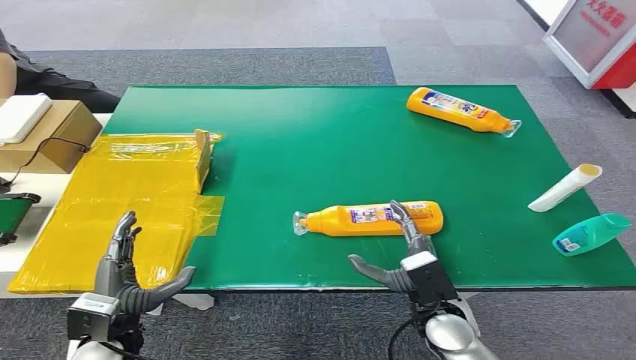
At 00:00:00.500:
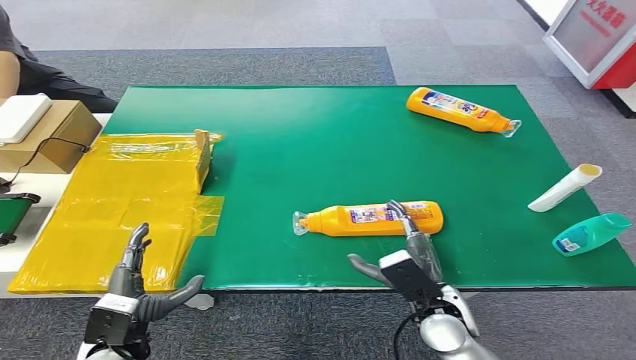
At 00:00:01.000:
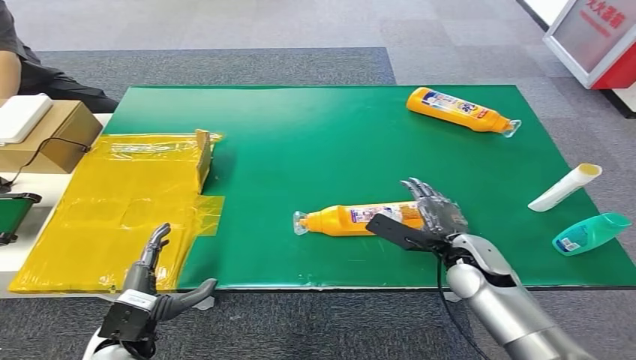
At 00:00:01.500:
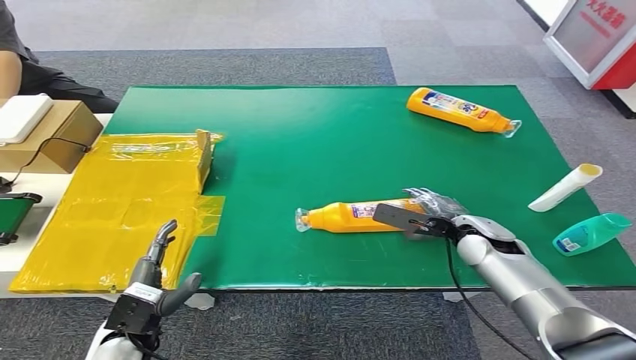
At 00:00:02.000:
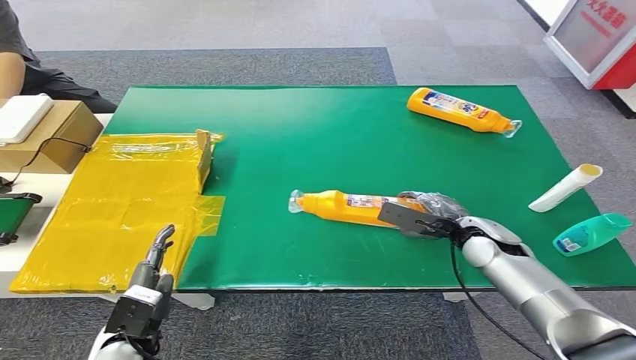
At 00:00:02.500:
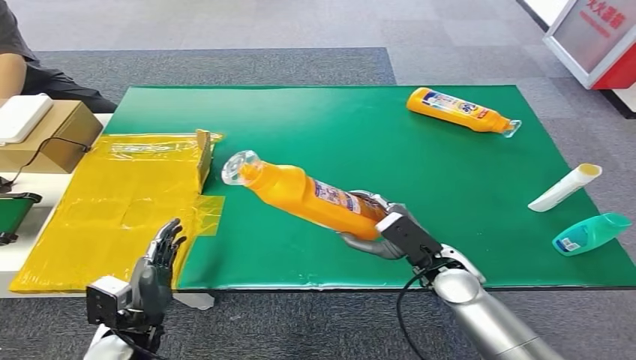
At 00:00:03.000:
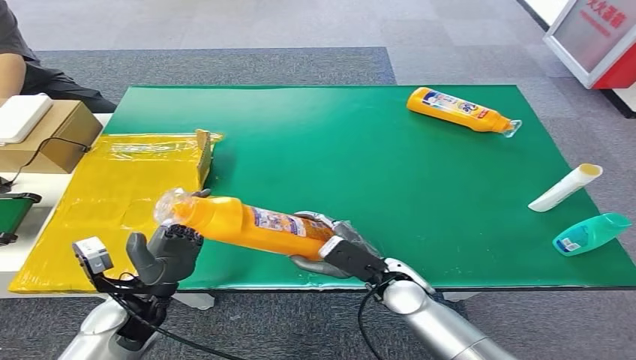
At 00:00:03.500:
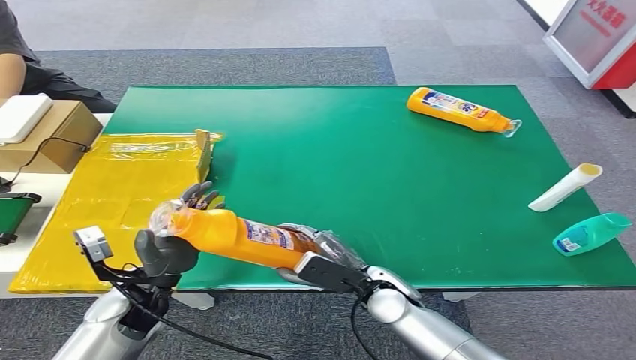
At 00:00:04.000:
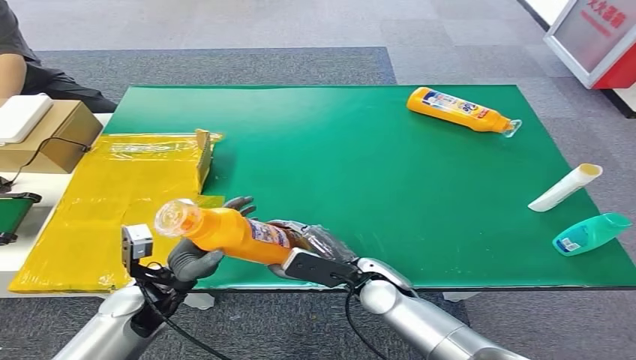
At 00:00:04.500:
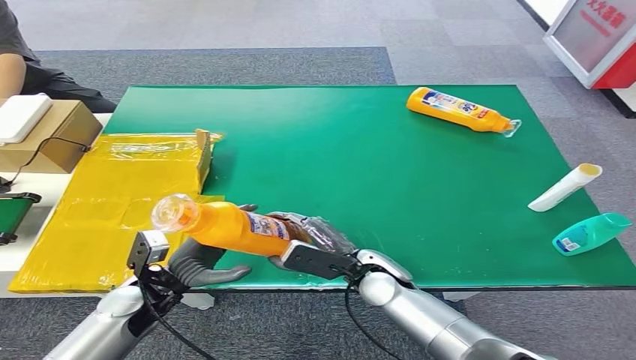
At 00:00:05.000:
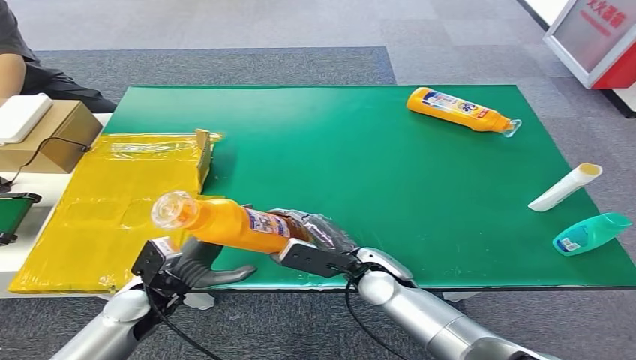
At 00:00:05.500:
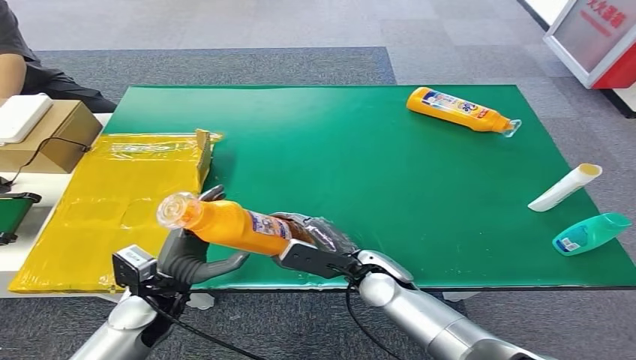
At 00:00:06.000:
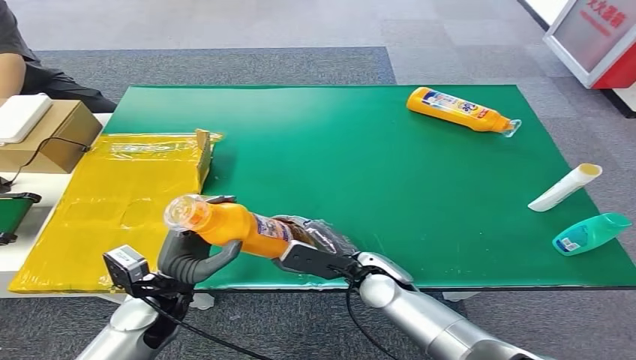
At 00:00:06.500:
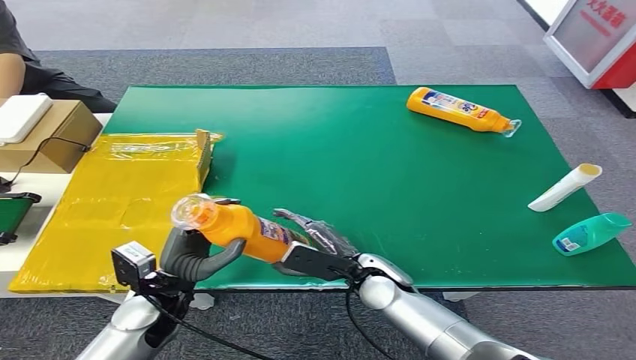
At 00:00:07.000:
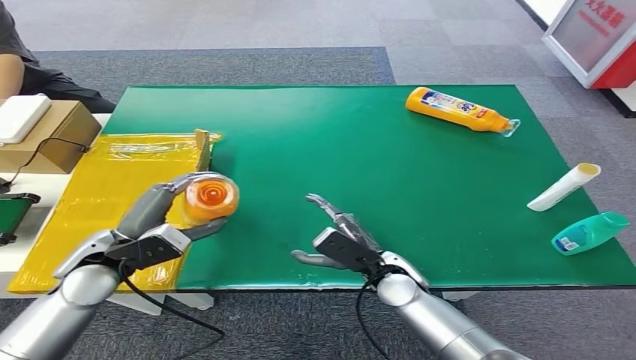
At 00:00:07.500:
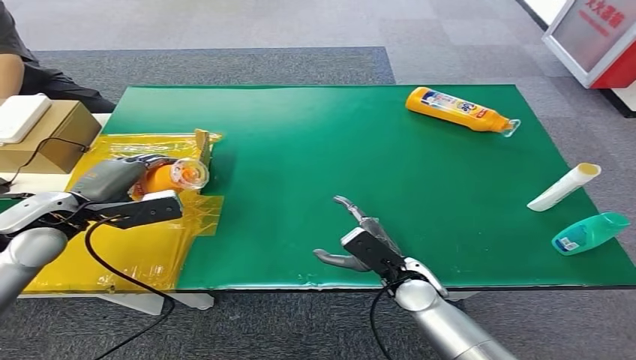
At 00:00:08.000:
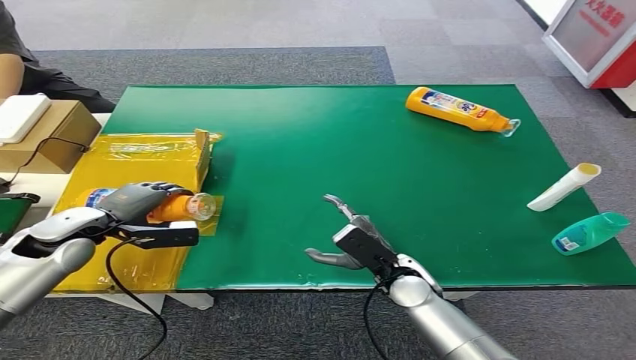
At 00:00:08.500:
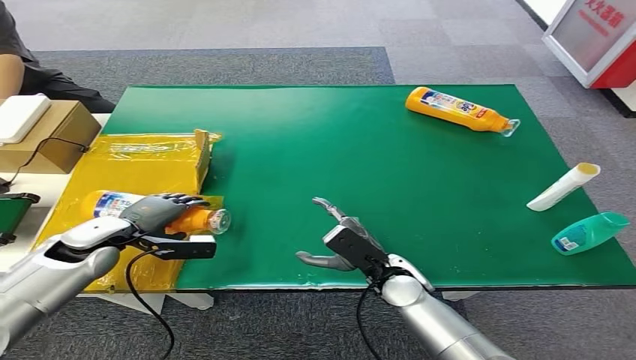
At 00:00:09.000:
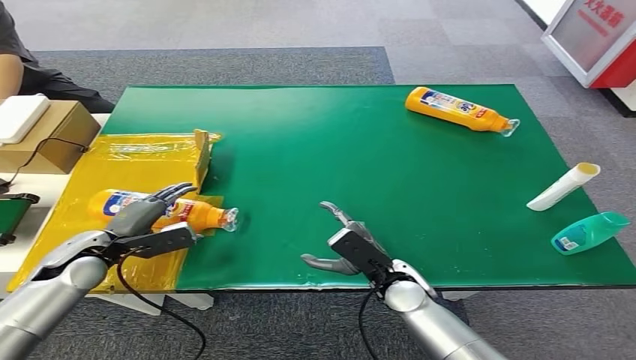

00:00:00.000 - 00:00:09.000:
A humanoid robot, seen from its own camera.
Step, 00:00:00.000 - 00:00:02.000: Pick up the bottle from the table.
Step, 00:00:02.500 - 00:00:09.000: Turn the bottle to the front side.
00:00:02.000 - 00:00:04.500: The right hand is displaced to the left by about 20 cm, while the left hand travels forward by some 10 cm.
00:00:04.500 - 00:00:07.000: The left hand shifts roughly 10 cm upward.
00:00:07.000 - 00:00:09.000: The left hand is displaced to the left and downward by approximately 10 cm.

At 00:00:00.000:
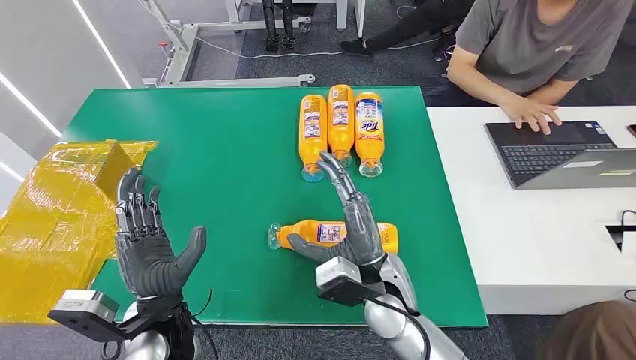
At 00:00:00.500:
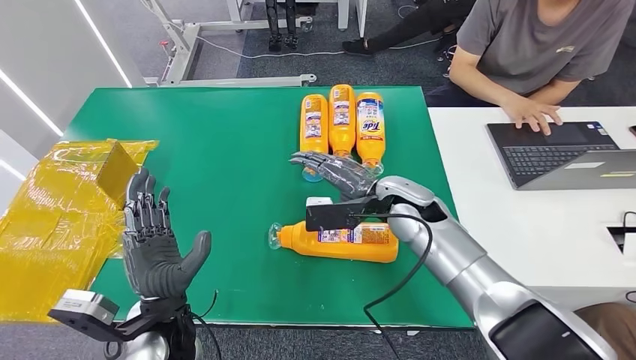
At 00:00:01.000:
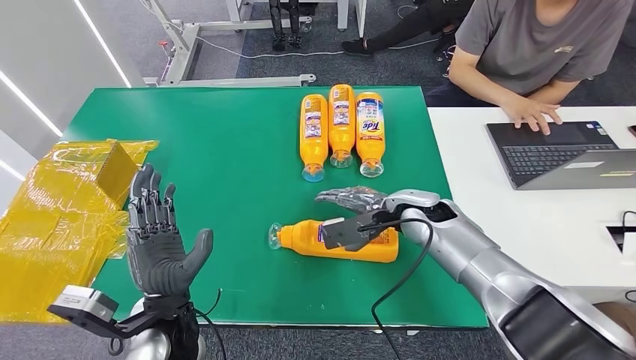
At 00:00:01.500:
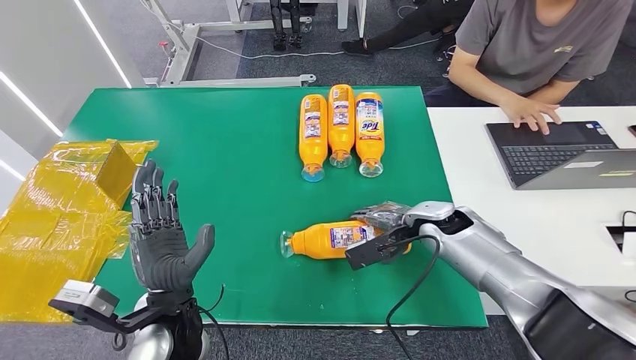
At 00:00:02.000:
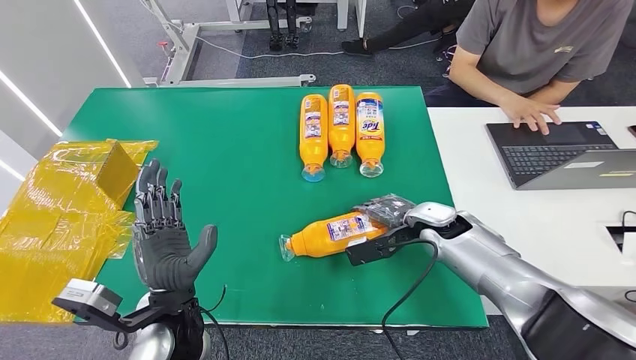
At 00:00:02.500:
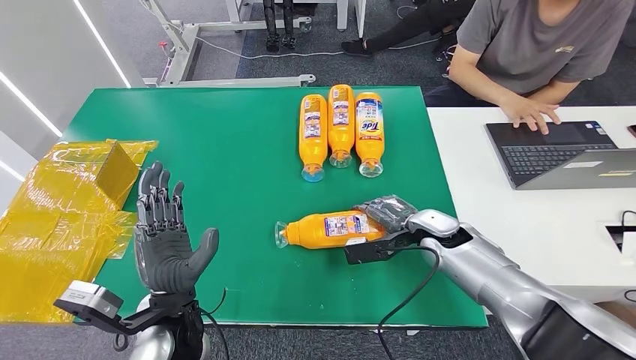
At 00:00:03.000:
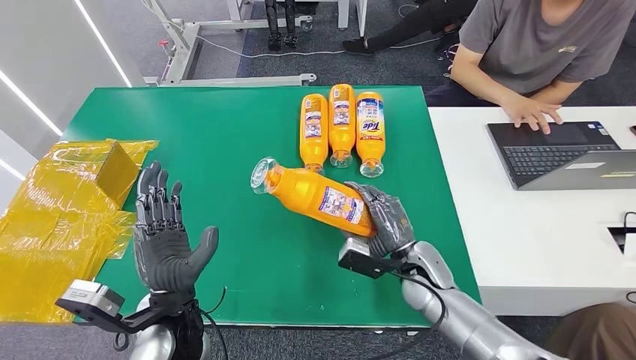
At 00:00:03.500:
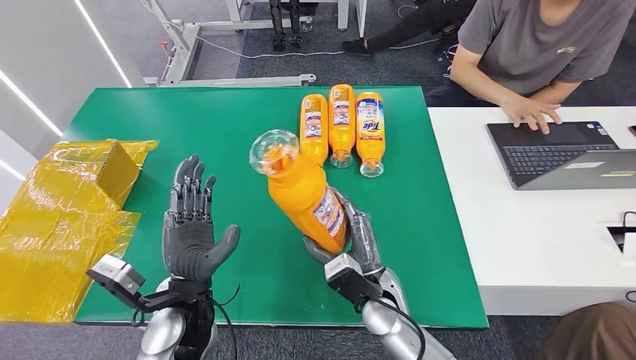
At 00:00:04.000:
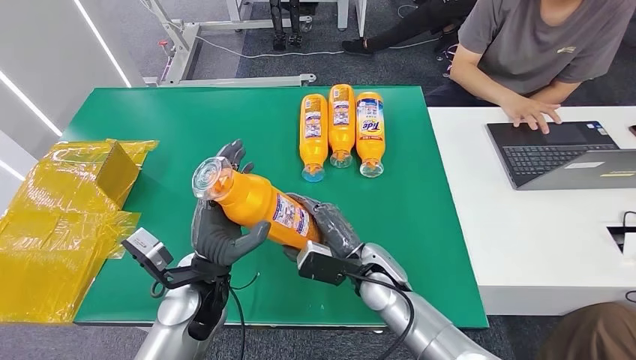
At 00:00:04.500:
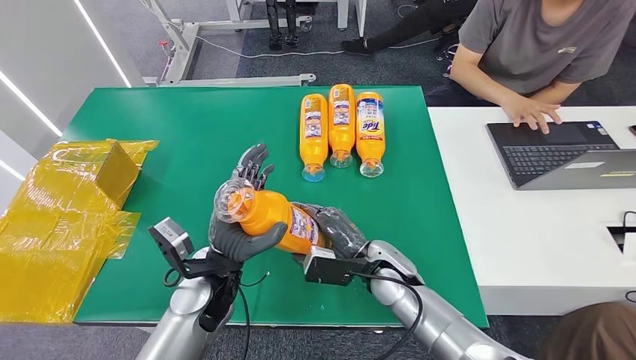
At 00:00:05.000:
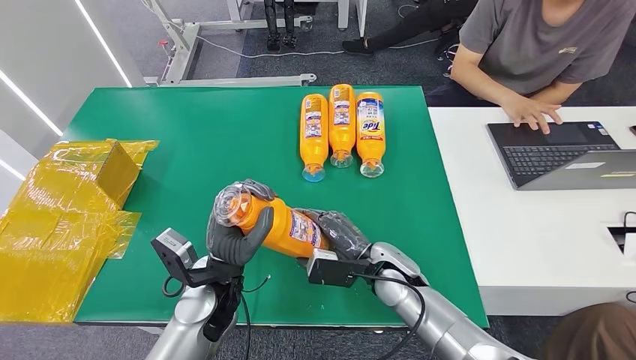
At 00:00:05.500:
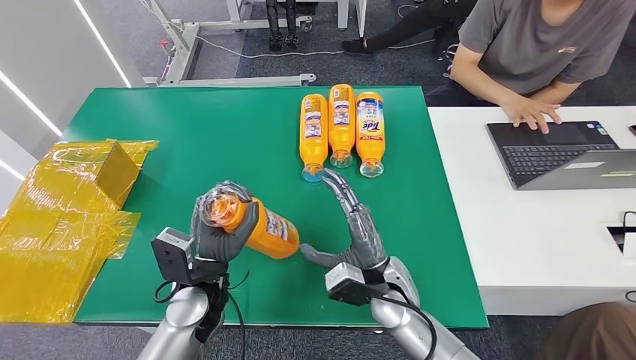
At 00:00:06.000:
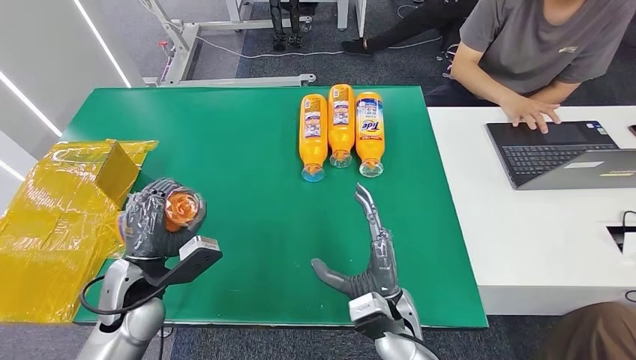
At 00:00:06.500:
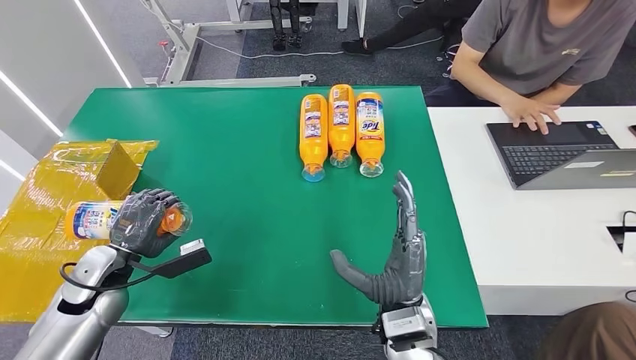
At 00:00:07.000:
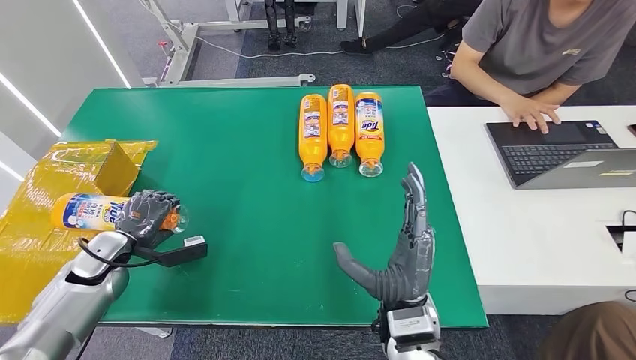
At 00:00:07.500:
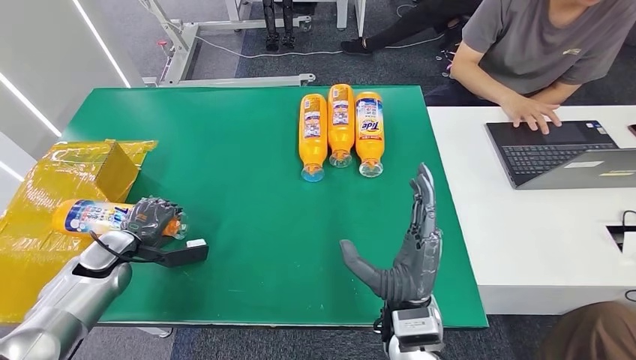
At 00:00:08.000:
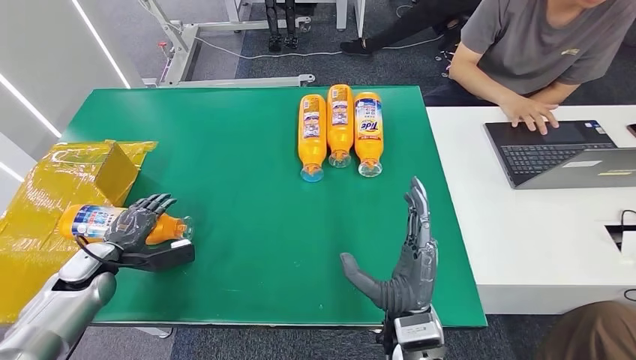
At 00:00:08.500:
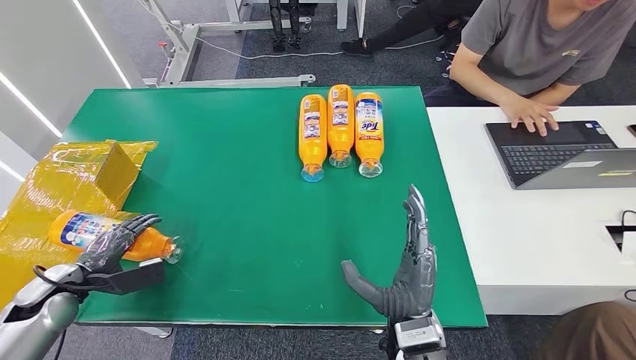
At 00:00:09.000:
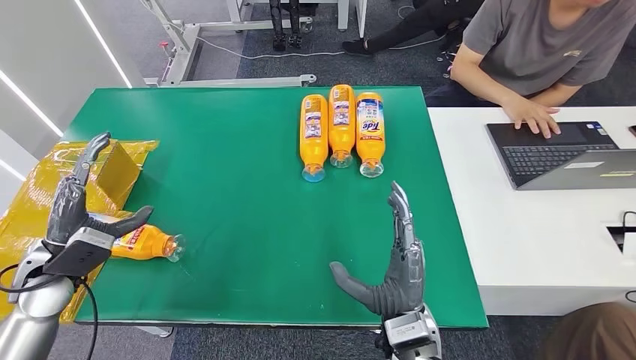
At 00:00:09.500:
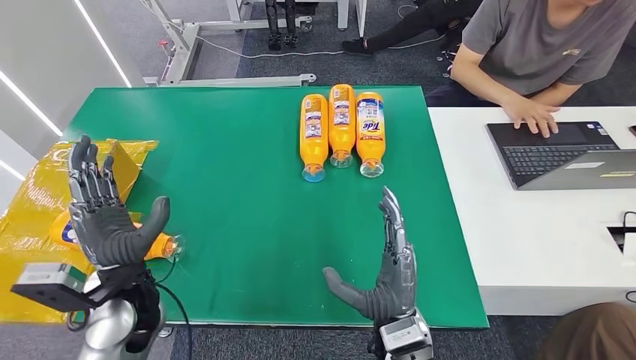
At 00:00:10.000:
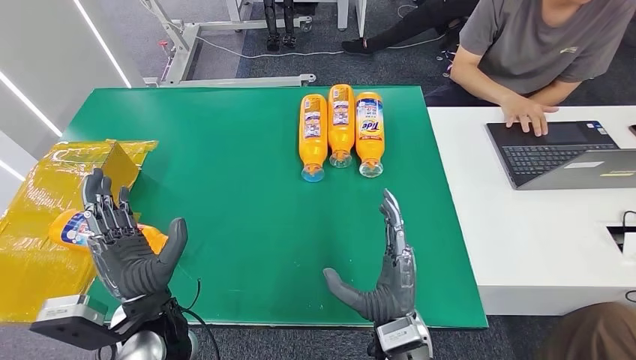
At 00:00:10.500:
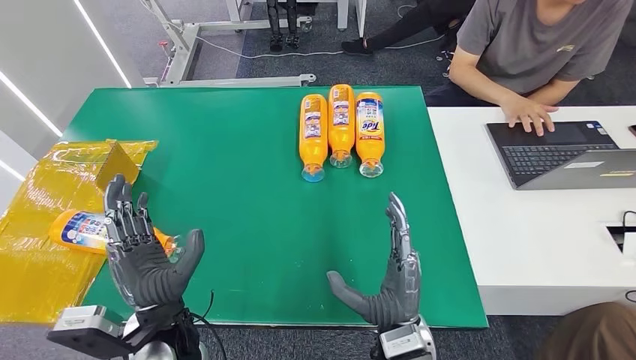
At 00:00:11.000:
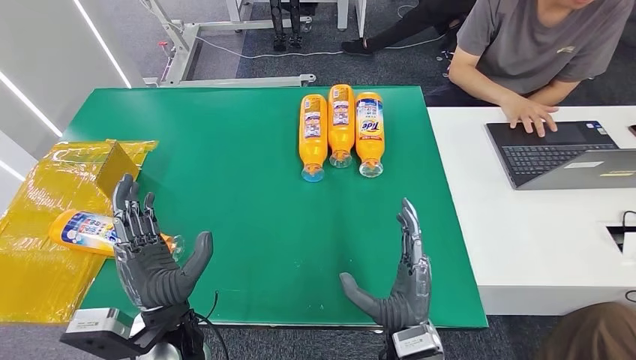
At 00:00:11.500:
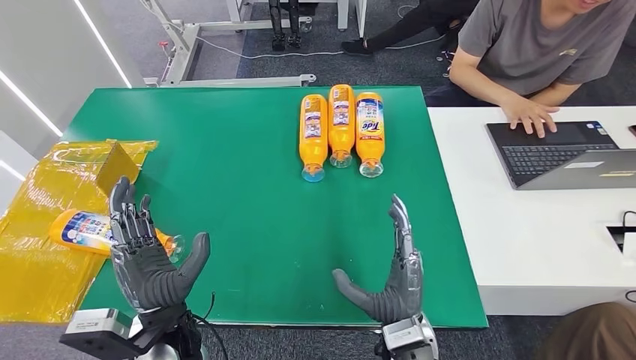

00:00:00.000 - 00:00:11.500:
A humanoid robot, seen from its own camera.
Step, 00:00:00.000 - 00:00:04.500: Pick up the bottle from the table.
Step, 00:00:05.000 - 00:00:11.500: Turn the bottle to the front side.
00:00:04.000 - 00:00:06.000: The left hand is displaced to the left by approximately 10 cm. Meanwhile the right hand shifts roughly 10 cm backward.
00:00:06.000 - 00:00:07.500: The right hand is displaced upward by about 5 cm. Meanwhile the left hand is displaced to the left, forward and downward by roughly 15 cm.
00:00:07.500 - 00:00:09.500: The left hand goes roughly 20 cm to the right, backward and upward.
00:00:09.500 - 00:00:11.500: The left hand shifts approximately 10 cm to the right and backward.
